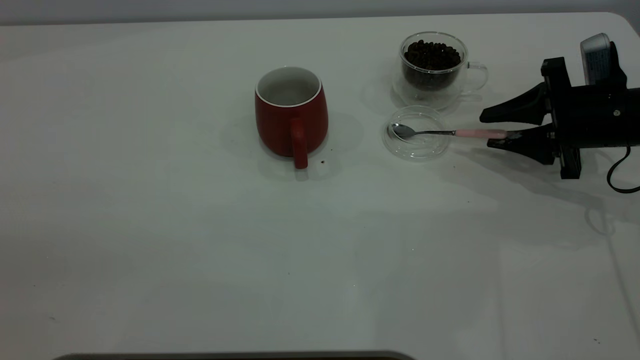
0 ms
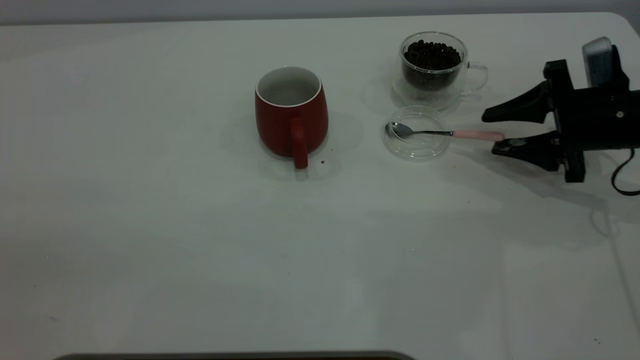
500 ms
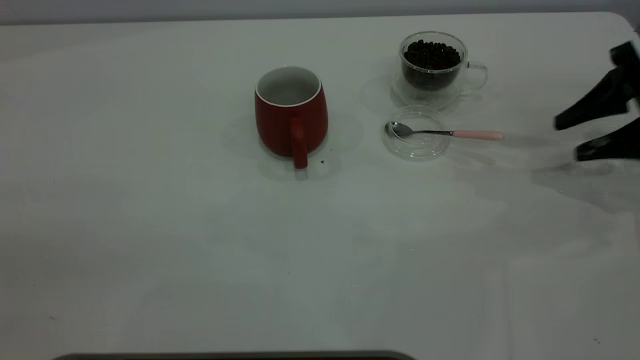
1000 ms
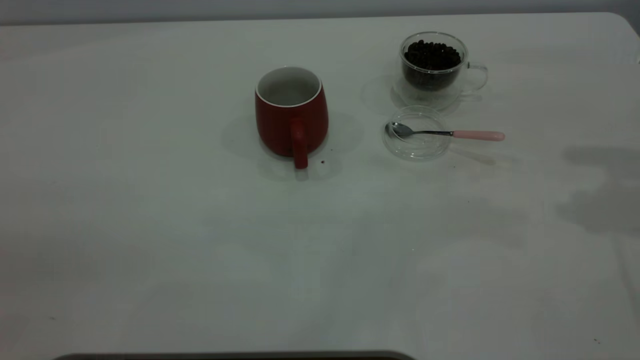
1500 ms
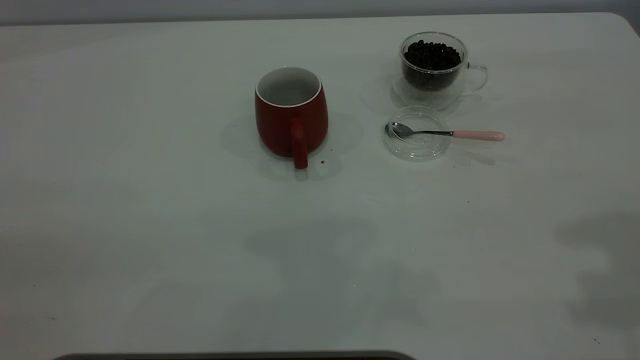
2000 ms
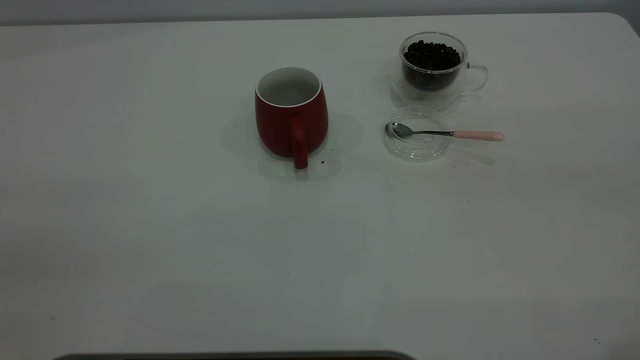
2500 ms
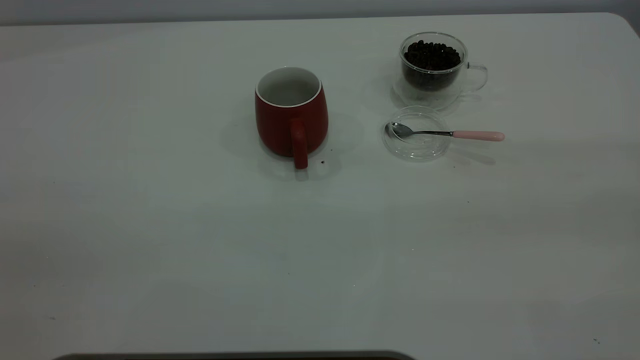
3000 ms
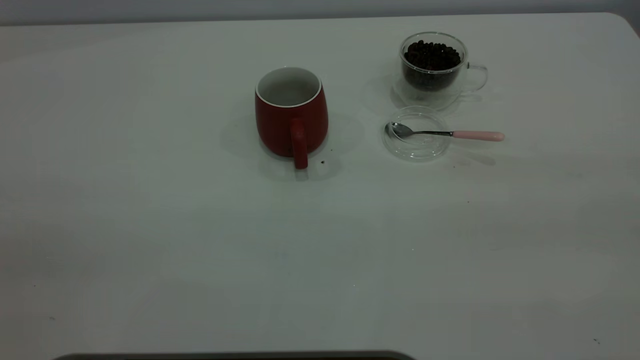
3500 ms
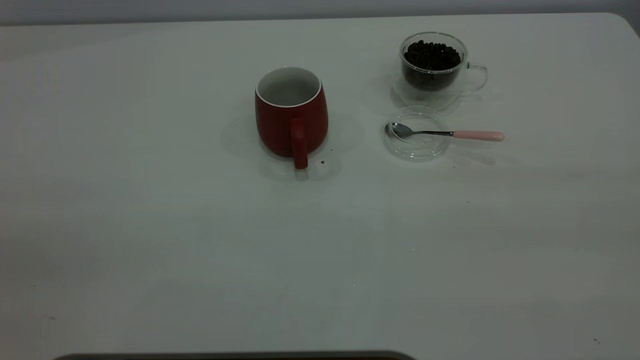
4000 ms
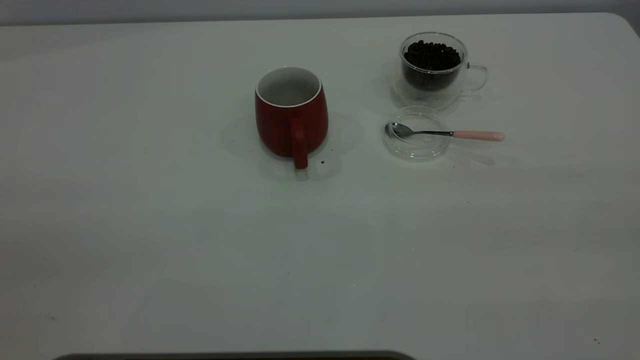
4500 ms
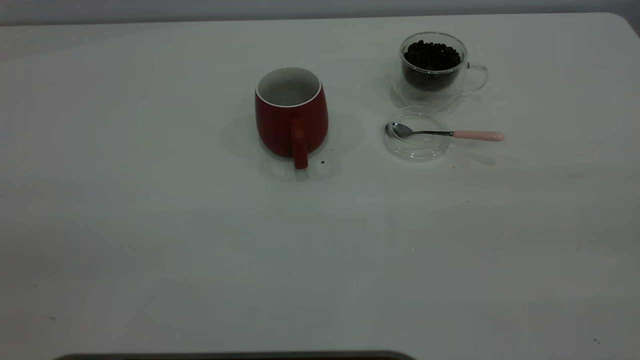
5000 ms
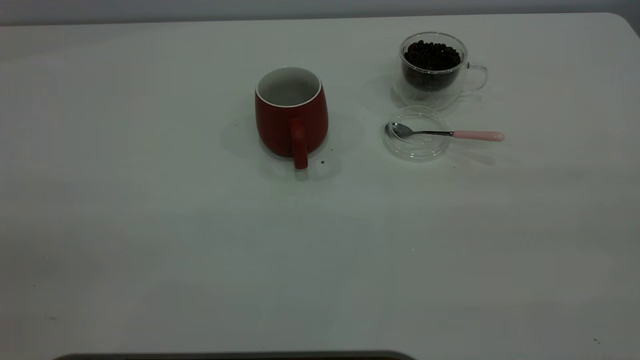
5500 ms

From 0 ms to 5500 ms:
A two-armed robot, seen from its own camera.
Task of the whole recording: the left gripper place the red cup in the center of the table, the right gripper take the pink spoon from the cup lid and scoop out the coffee beans from the coffee cup and put them into the red cup, the right gripper put the spoon back into the cup lid.
From 0 ms to 2000 ms: The right gripper shifts about 35 cm upward and backward.

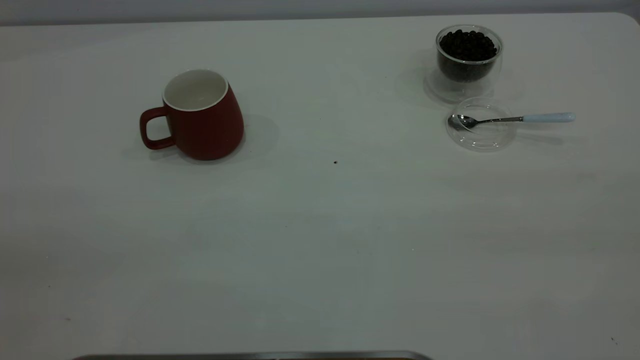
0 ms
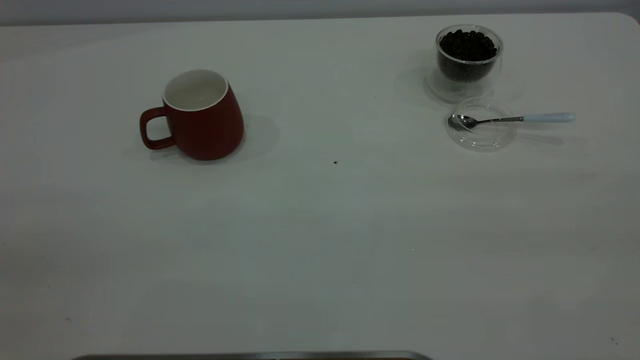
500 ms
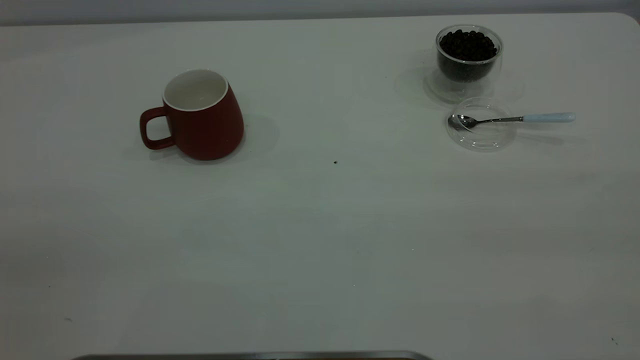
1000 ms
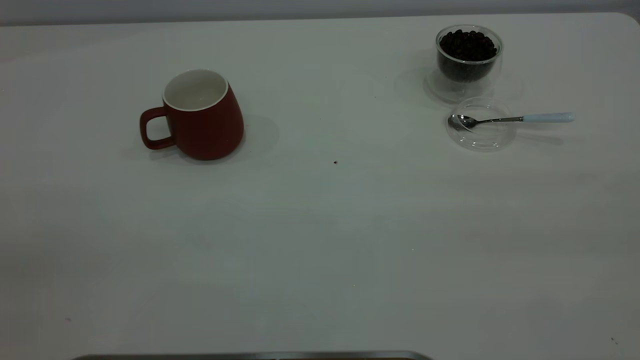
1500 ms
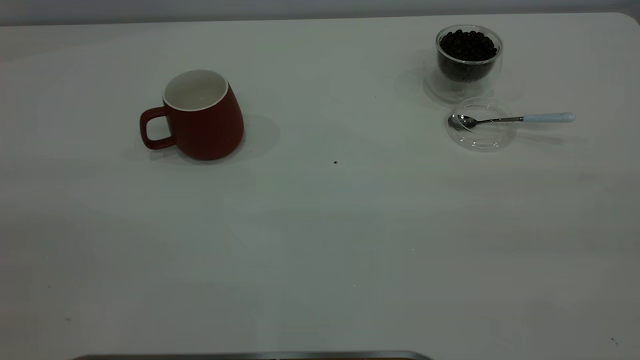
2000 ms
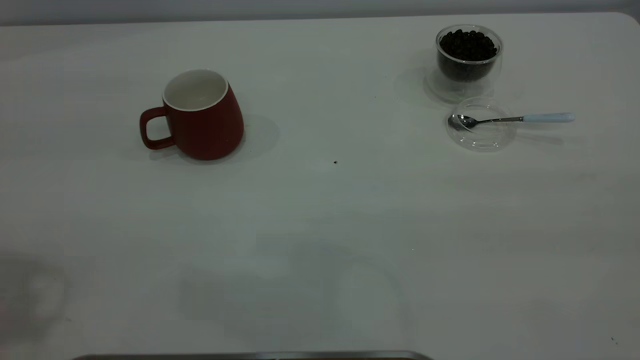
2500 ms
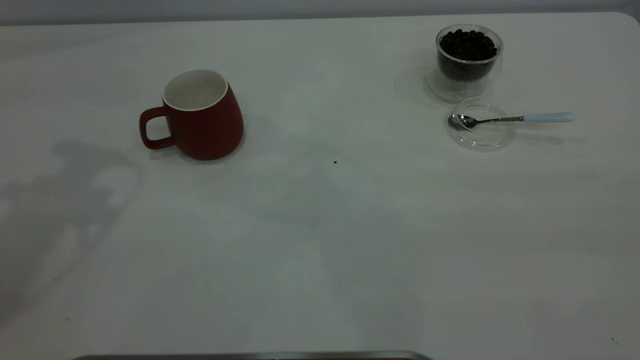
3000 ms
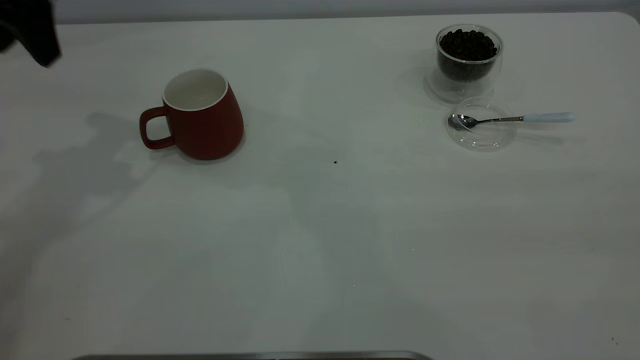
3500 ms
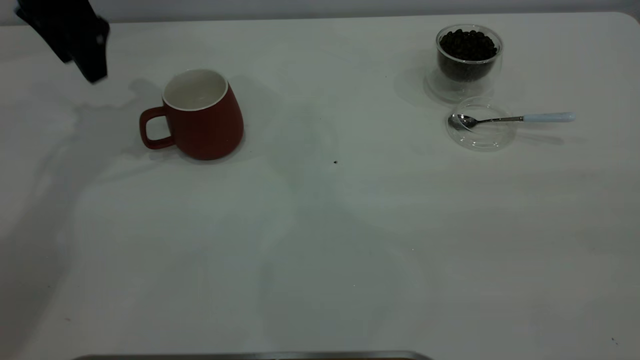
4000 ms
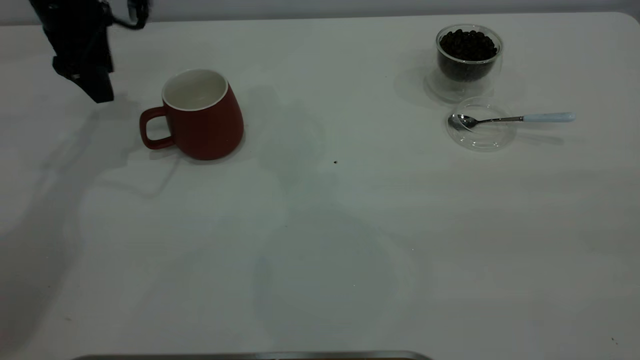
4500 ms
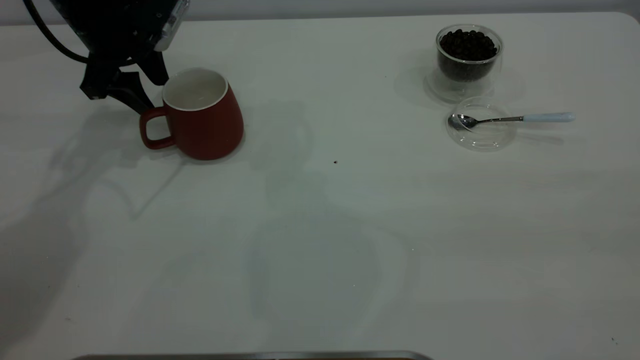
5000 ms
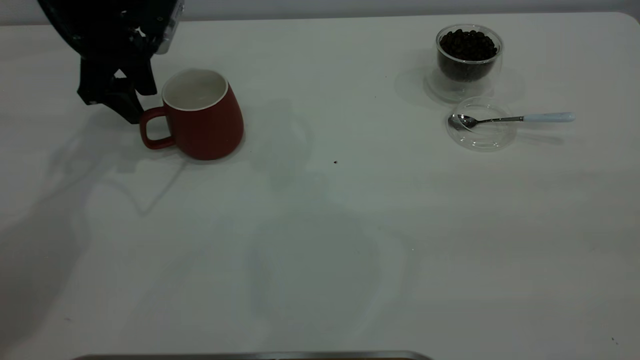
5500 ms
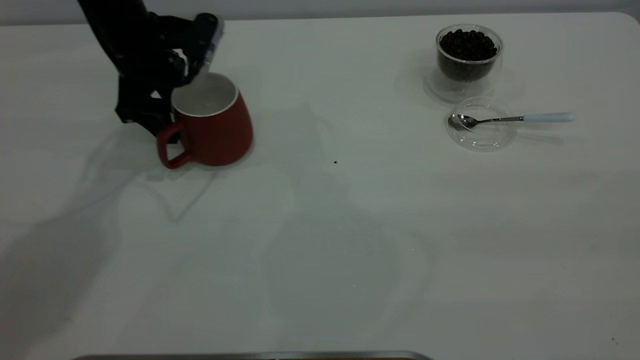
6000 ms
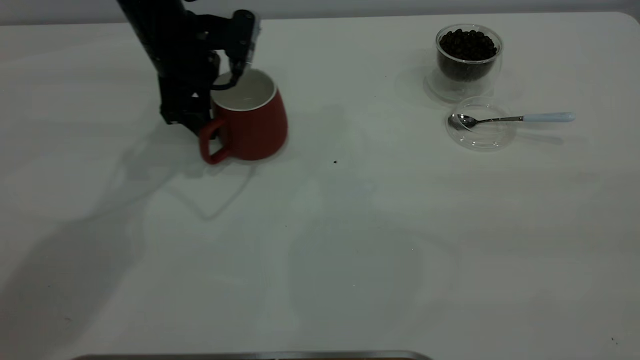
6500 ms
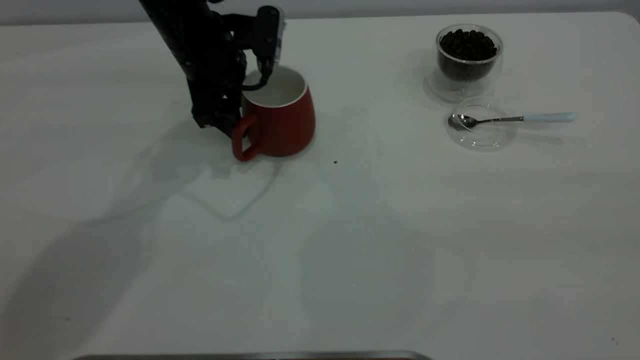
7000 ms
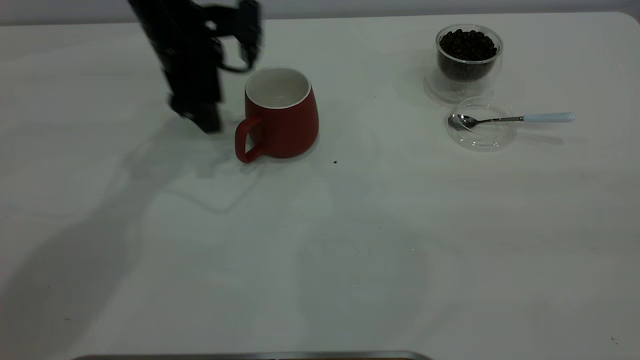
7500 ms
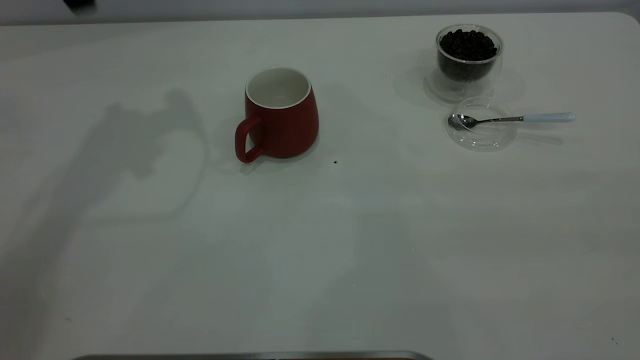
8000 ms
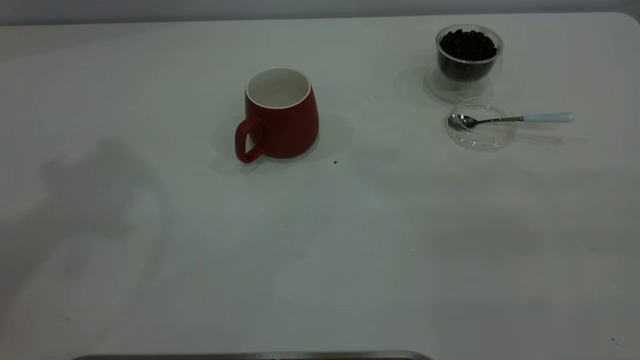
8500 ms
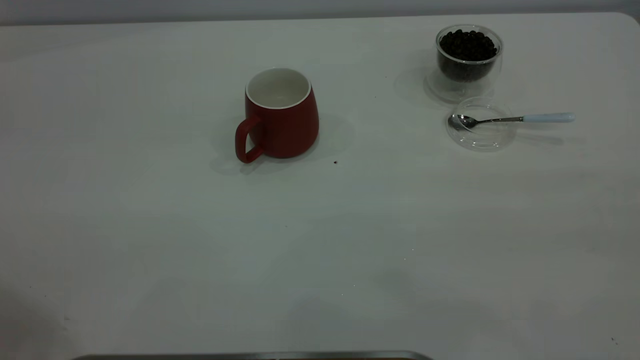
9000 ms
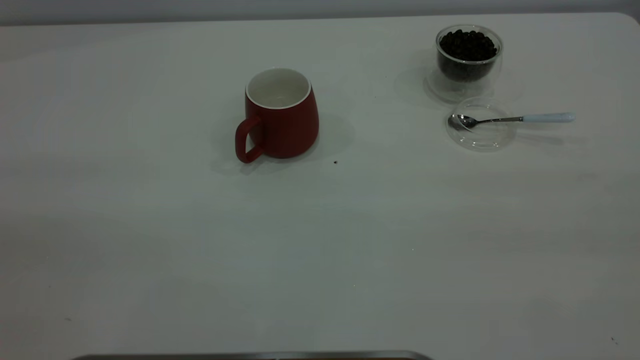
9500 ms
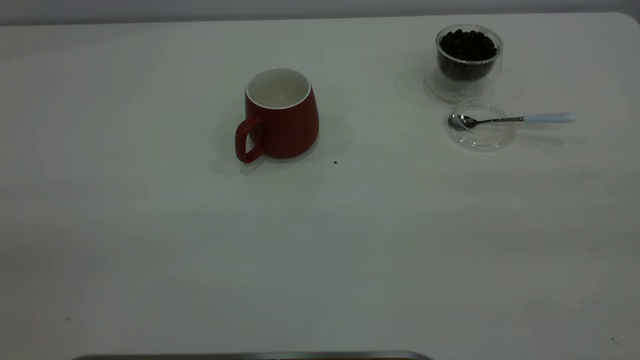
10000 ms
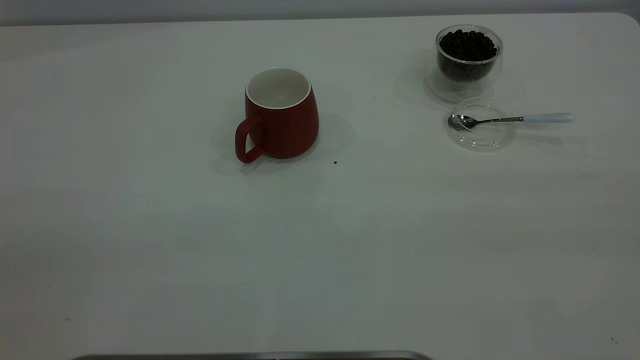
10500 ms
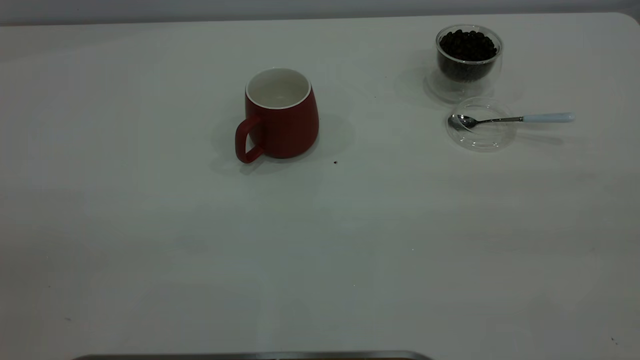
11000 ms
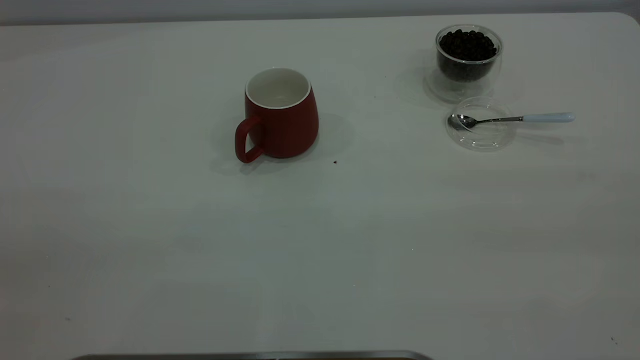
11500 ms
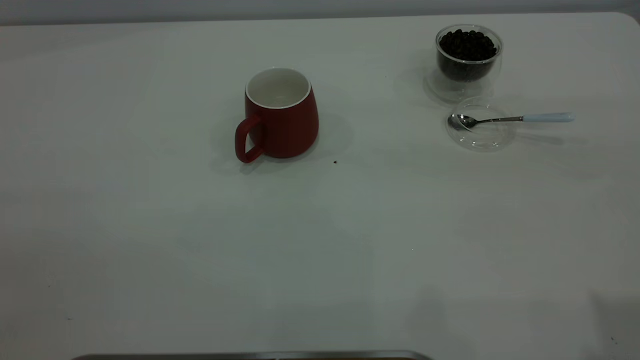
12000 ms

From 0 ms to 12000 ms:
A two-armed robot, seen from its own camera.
Task of the whole recording: the left gripper place the red cup in the center of the table, the right gripper take the blue spoon from the cup lid and scoop out the coffee beans from the coffee cup and put them into the red cup, the right gripper put the spoon back into the cup lid.
Step, from 0 ms to 7500 ms: Move the cup to the center of view.
From 2000 ms to 4000 ms: The left gripper heads forward and downward, covering roughly 50 cm.
From 4000 ms to 6000 ms: The left gripper travels downward and to the right by approximately 10 cm.
From 6000 ms to 8000 ms: The left gripper goes about 20 cm upward.

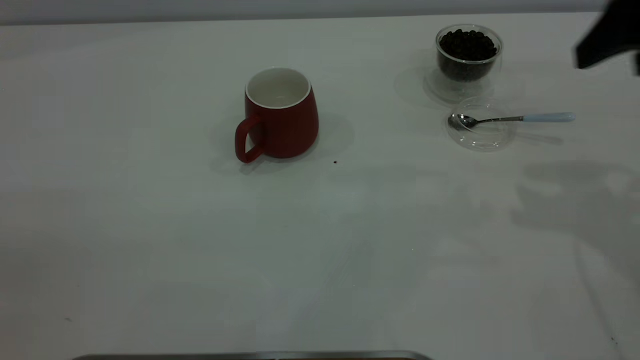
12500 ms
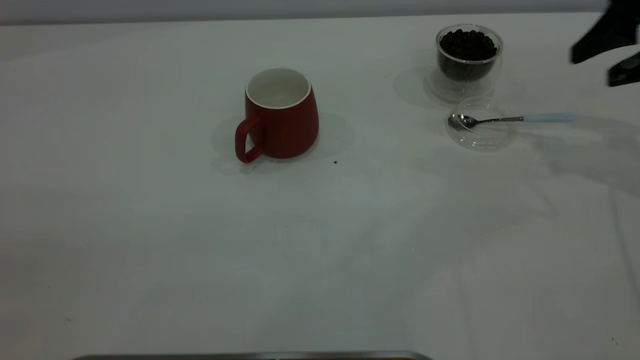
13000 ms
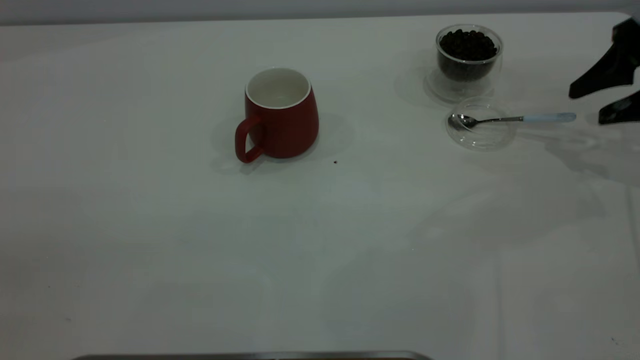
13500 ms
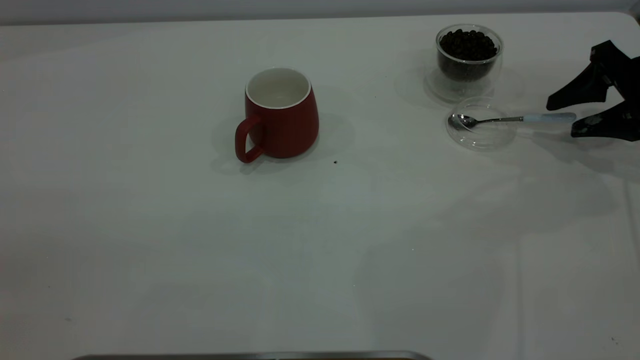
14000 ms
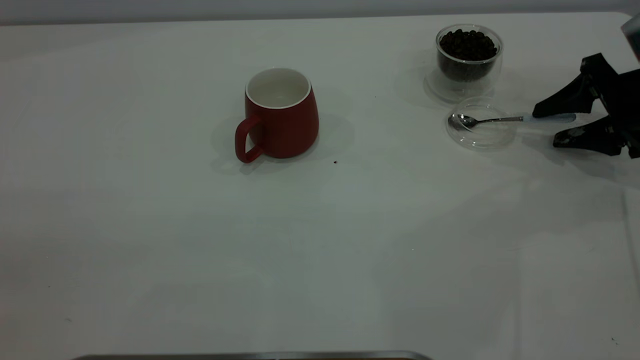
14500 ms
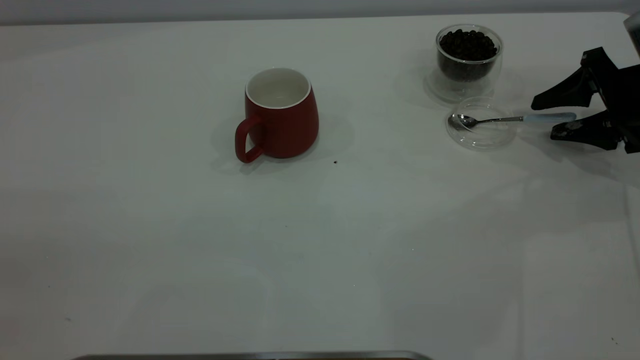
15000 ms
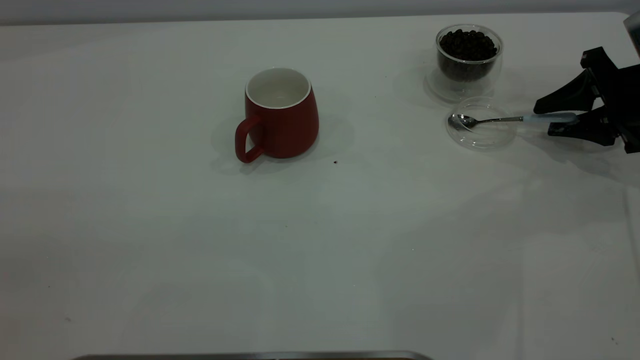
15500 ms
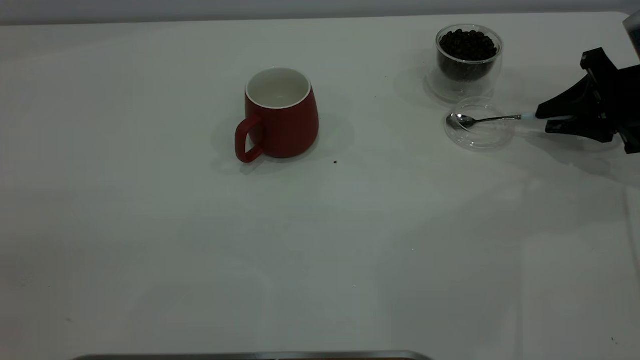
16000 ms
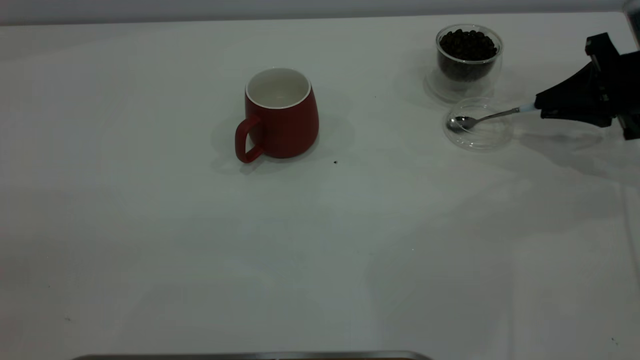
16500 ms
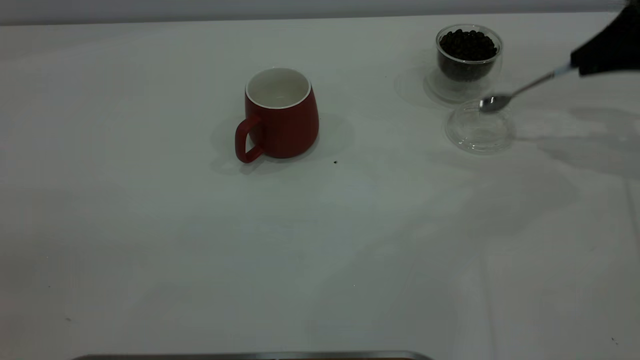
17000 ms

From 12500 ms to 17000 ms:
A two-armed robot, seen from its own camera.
Task of the whole recording: the left gripper place the red cup in the center of the table, the right gripper take the blue spoon from the cup lid and scoop out the coffee beans from the coffee cup and put them into the red cup, the right gripper put the spoon back into the cup lid.
Step, from 12500 ms to 16500 ms: Pick up the spoon.
From 12500 ms to 14500 ms: The right gripper goes approximately 20 cm downward, to the right and forward.
From 14500 ms to 17000 ms: The right gripper shifts roughly 10 cm upward, and closes its fingers.
